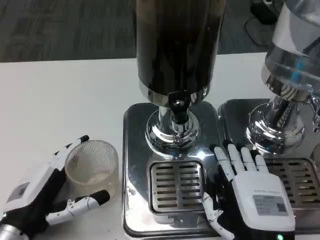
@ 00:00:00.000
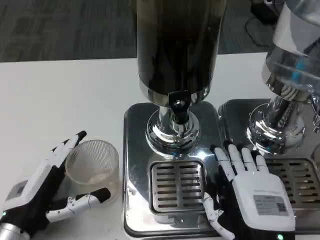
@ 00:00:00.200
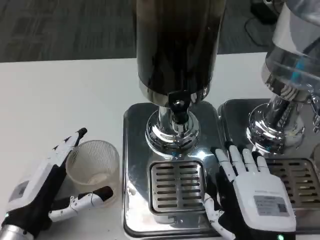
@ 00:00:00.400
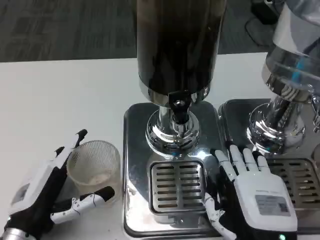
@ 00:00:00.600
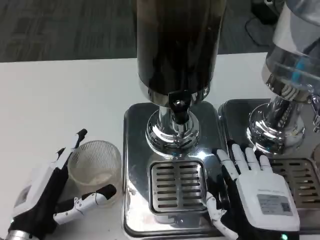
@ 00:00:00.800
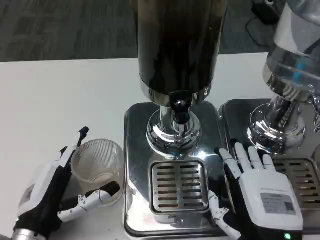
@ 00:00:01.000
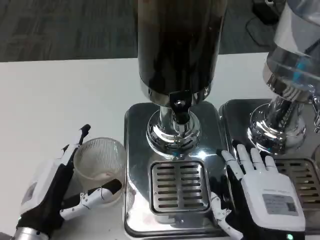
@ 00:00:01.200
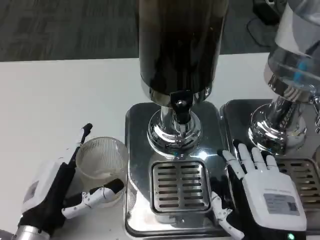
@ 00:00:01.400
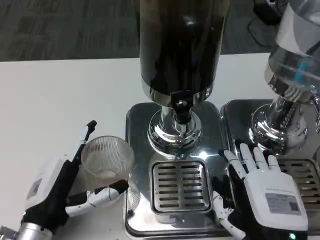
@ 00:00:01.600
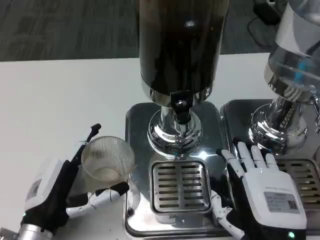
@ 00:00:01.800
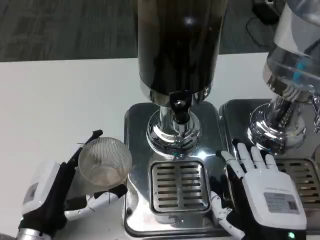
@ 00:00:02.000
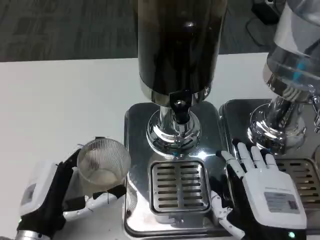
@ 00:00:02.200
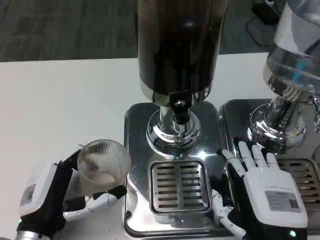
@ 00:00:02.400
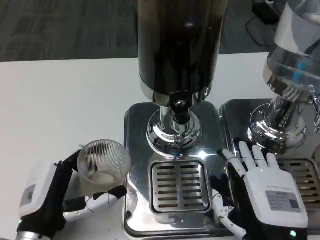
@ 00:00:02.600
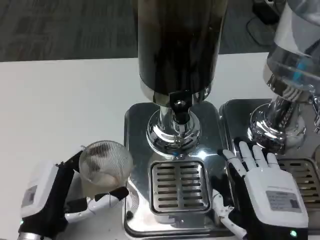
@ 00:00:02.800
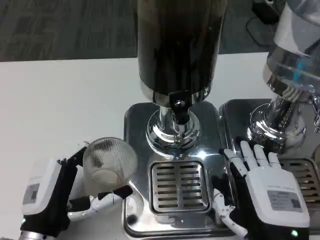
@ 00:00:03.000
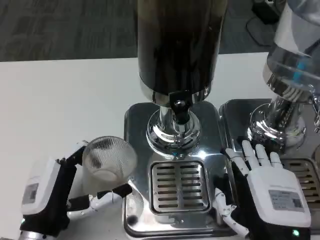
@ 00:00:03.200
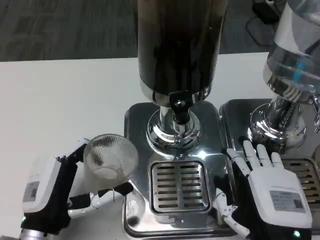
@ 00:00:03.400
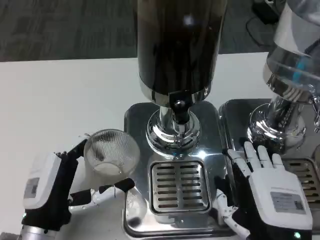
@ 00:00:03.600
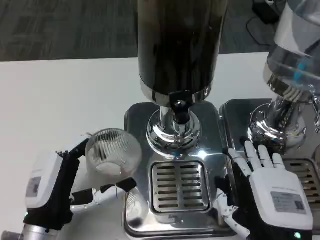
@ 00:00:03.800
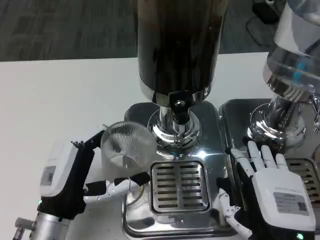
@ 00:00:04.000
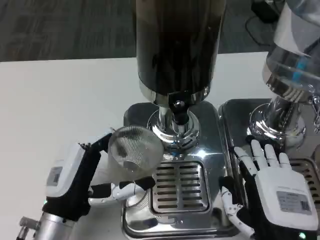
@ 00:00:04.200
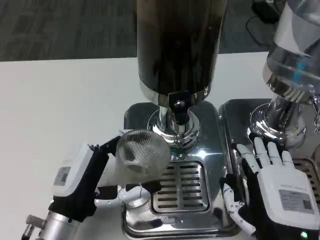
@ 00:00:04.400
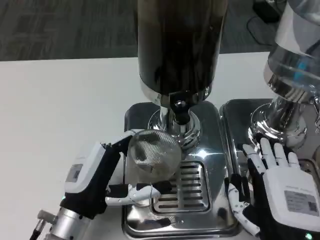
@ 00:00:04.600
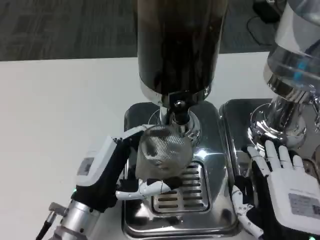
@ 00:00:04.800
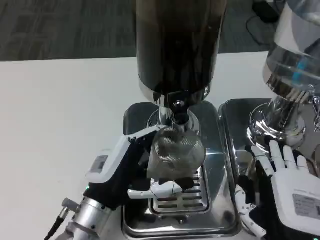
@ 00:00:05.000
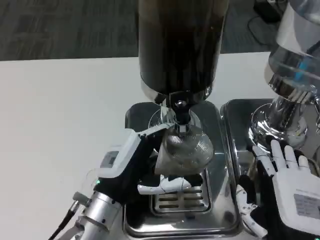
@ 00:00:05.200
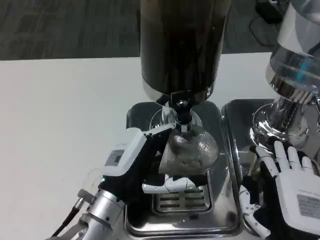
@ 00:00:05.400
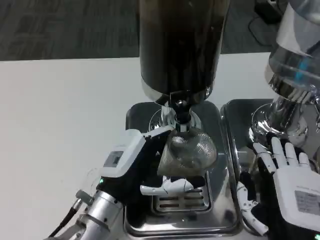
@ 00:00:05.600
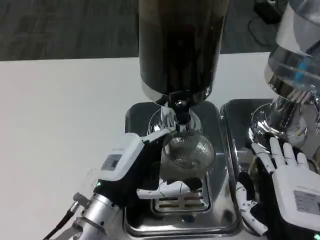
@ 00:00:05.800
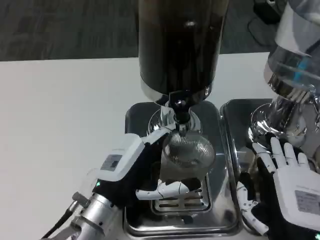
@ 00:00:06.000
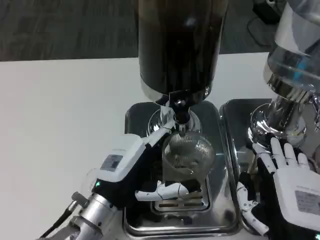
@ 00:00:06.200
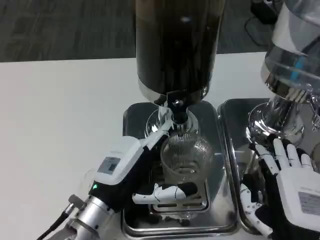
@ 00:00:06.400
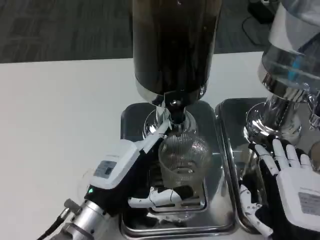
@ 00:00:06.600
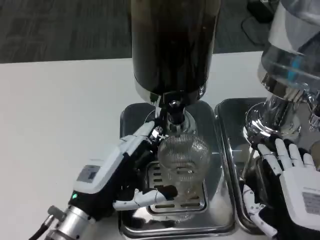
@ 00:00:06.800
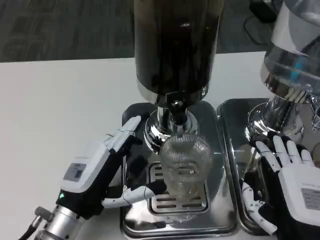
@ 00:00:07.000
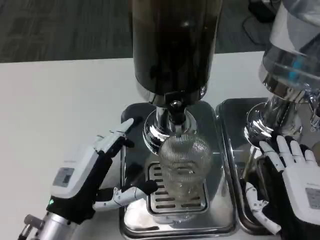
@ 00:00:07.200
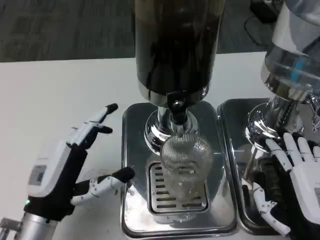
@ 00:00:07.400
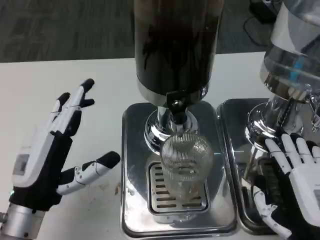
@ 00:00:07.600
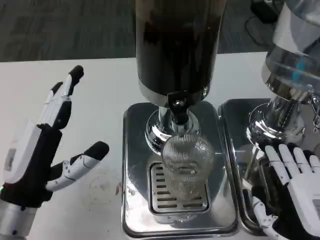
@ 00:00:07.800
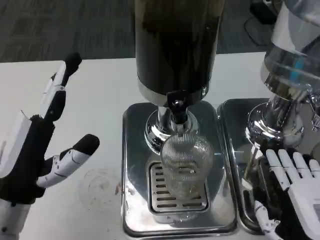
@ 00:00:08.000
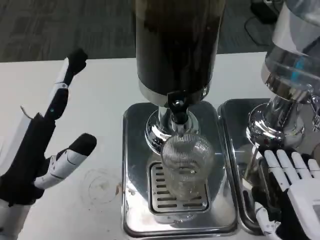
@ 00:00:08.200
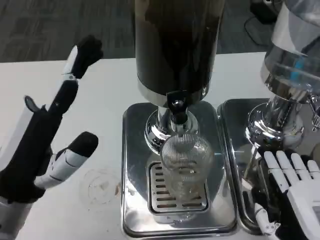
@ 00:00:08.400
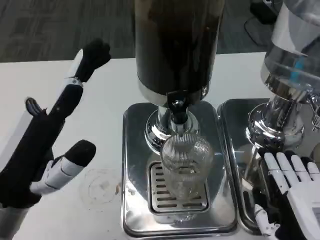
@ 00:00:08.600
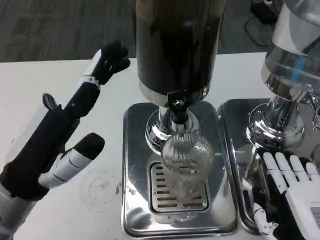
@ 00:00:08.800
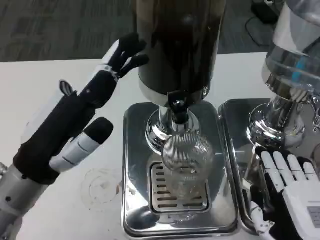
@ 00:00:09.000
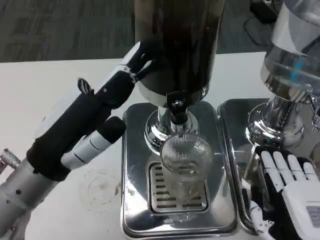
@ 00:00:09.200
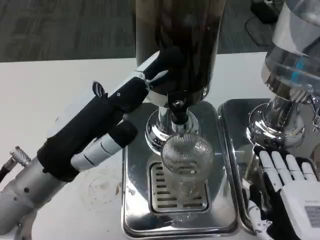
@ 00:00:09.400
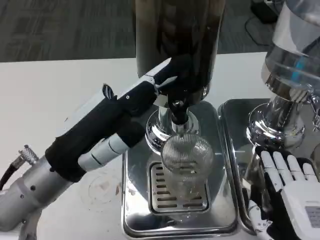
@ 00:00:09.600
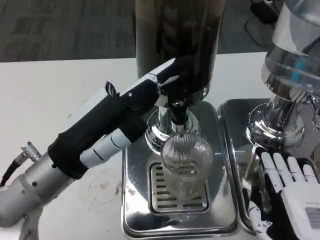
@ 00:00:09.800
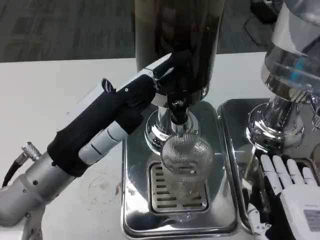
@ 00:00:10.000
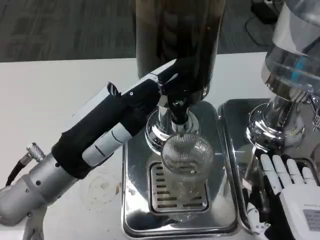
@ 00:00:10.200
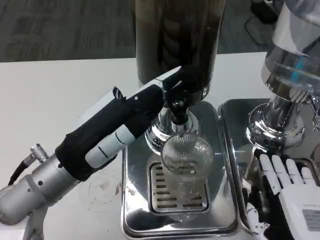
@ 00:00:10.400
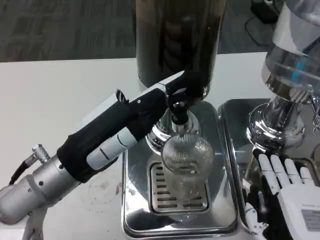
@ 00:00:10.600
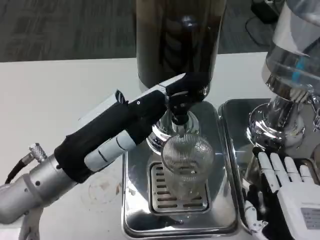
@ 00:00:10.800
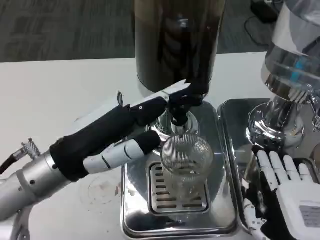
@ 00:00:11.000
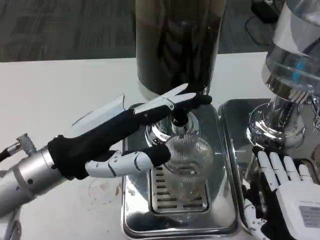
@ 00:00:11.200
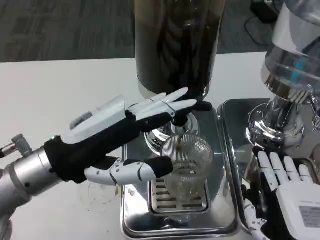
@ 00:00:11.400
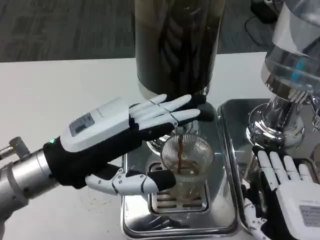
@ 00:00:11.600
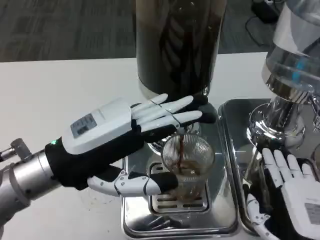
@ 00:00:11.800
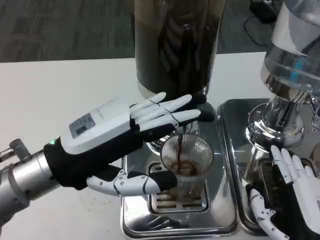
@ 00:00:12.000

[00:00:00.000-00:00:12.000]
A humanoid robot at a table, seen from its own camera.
Task of the whole recording: Grasp the cup under the faucet to collect the drink, then remove the cup.
00:00:01.600 to 00:00:03.000: The hands move only a little.
00:00:04.400 to 00:00:06.000: The left hand shifts by approximately 5 cm.
00:00:06.000 to 00:00:07.600: The left hand travels to the left by about 10 cm.
00:00:07.600 to 00:00:09.000: The left hand moves upward, approximately 10 cm.

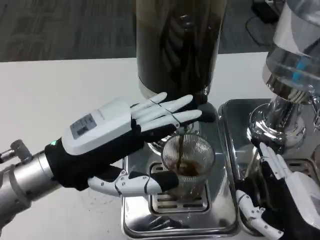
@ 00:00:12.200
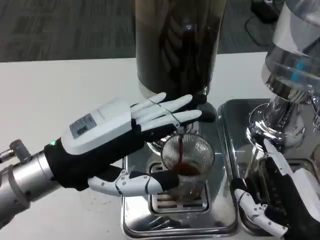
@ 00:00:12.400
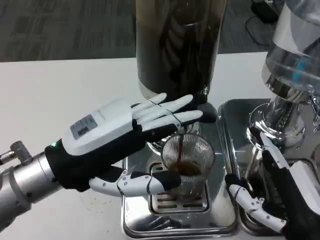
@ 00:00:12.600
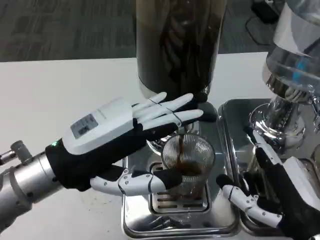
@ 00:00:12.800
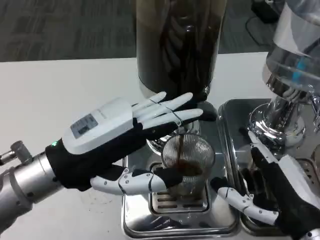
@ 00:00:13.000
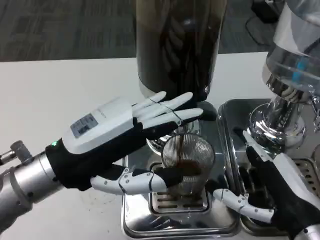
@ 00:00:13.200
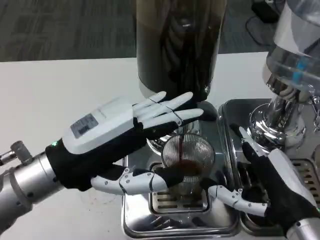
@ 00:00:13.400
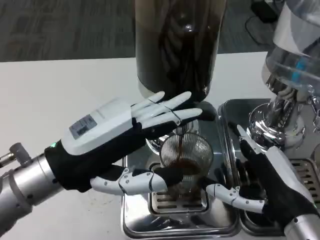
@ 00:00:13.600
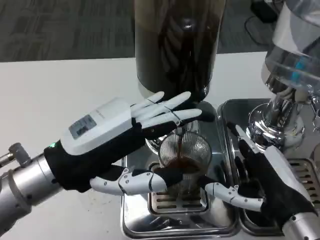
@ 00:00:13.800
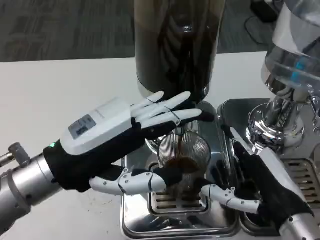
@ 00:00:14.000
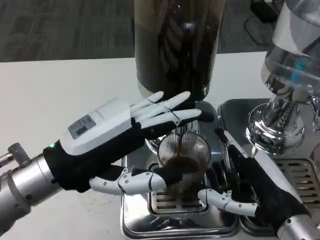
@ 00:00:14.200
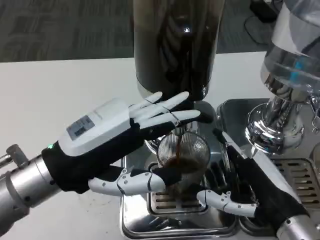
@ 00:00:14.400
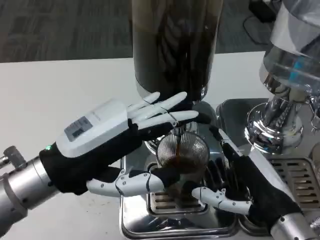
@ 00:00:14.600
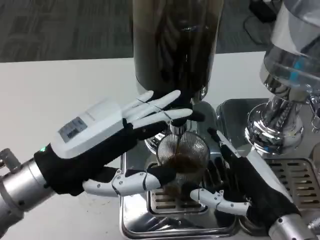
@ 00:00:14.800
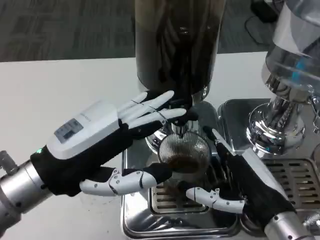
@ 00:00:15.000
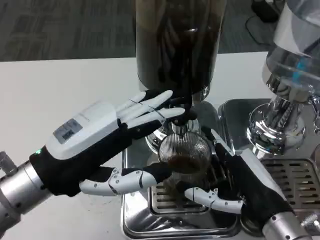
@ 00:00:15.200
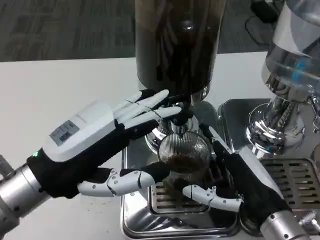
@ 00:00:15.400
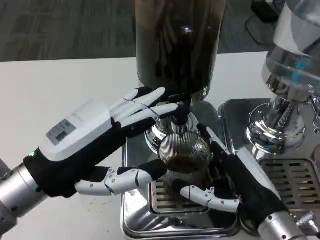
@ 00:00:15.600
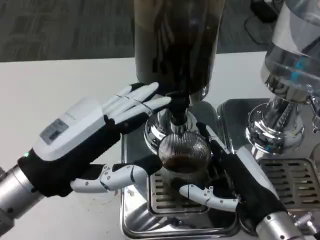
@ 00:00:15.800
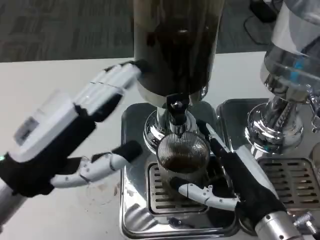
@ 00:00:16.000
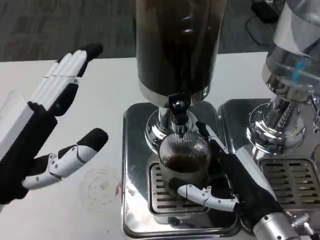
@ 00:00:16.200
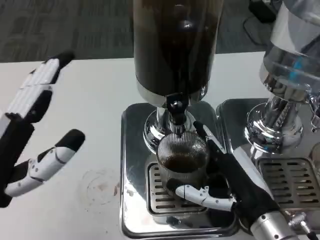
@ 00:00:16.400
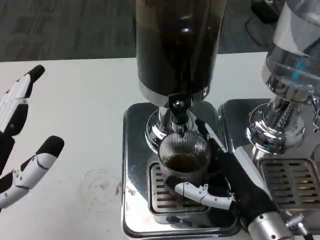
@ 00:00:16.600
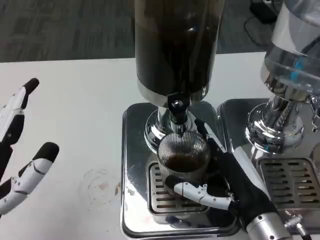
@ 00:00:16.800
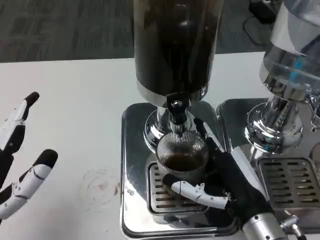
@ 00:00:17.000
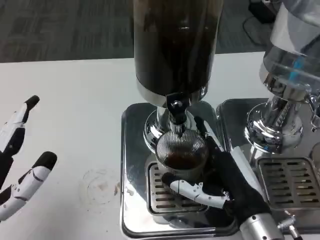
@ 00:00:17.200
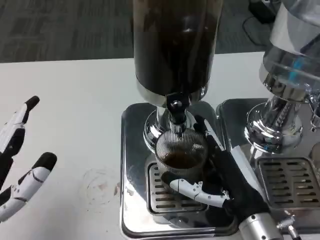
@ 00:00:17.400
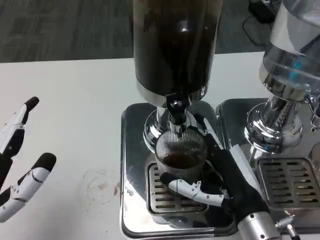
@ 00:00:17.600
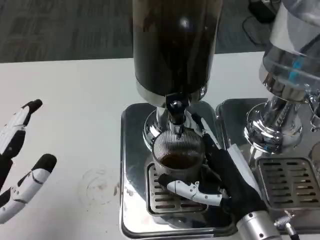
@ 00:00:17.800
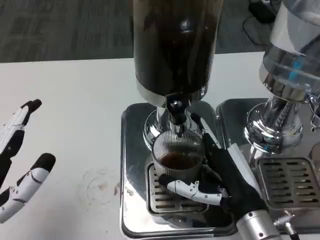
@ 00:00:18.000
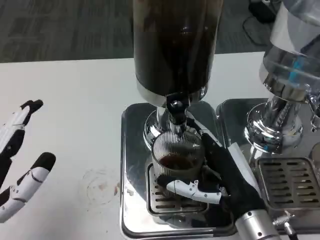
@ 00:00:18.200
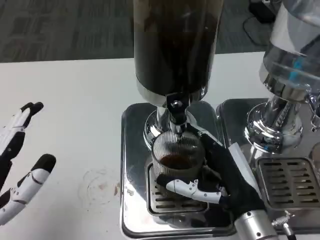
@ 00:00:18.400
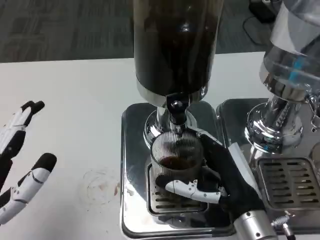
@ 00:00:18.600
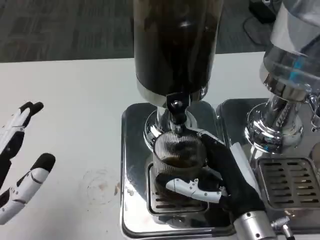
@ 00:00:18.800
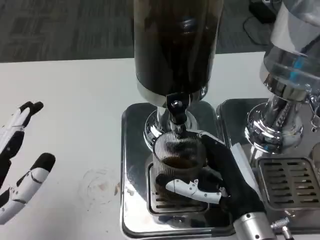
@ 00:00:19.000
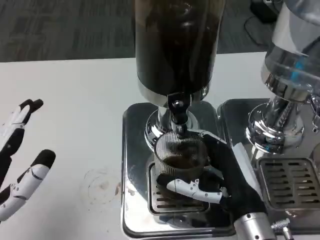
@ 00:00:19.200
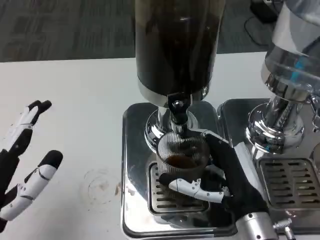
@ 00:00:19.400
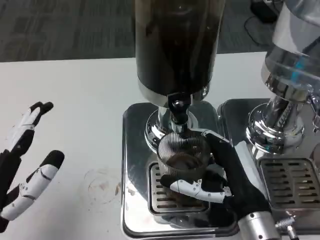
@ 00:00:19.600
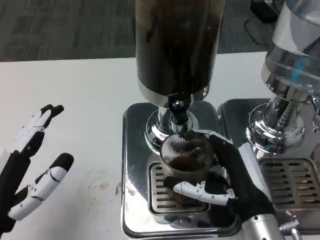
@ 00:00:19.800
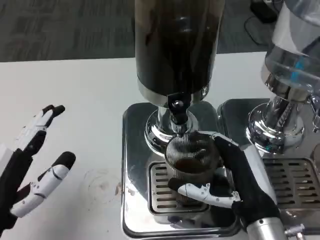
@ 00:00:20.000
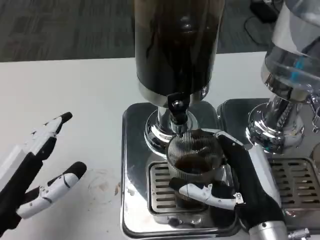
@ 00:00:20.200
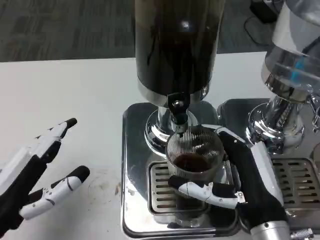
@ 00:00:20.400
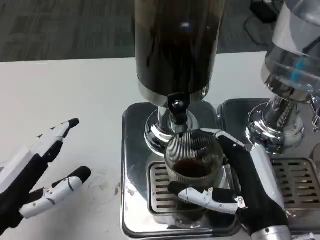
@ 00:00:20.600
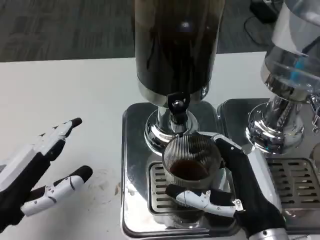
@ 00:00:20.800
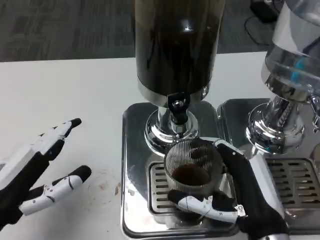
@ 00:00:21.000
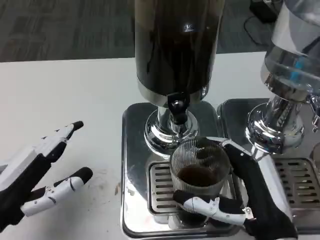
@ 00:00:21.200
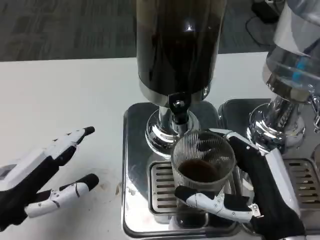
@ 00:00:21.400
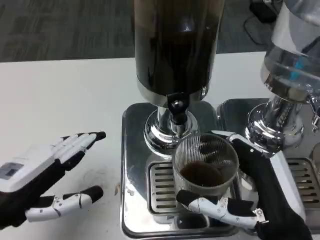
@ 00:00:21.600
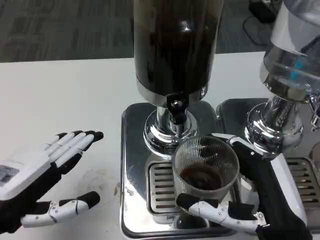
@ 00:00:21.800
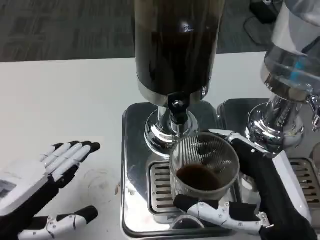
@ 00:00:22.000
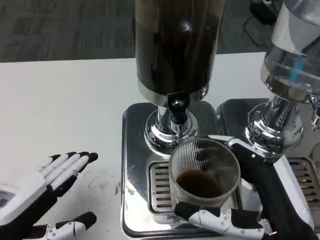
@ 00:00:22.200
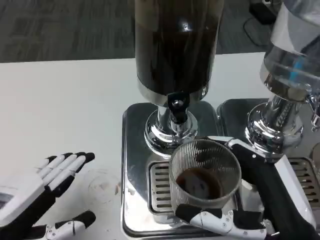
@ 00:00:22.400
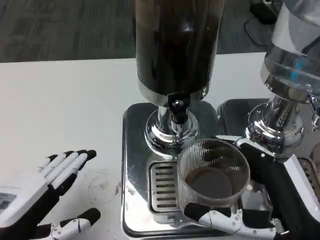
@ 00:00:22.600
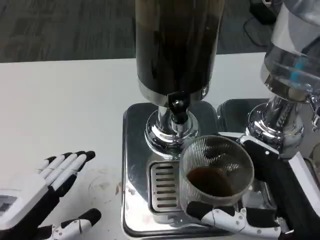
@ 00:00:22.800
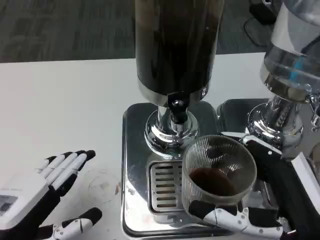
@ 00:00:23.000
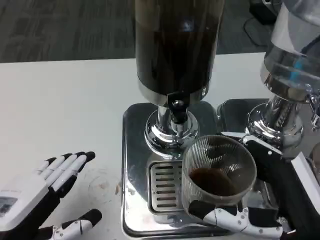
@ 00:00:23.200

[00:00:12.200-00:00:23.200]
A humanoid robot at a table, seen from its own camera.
Task of the whole recording: Grasp the cup under the faucet to collect the drink, then remove the cup.
00:00:12.200 to 00:00:13.800: The right hand ends up approximately 5 cm from where it was.
00:00:15.400 to 00:00:17.000: The left hand moves downward, backward and to the left, roughly 10 cm.
00:00:17.000 to 00:00:18.400: Both hands stay about where they are.
00:00:20.000 to 00:00:21.600: The right hand ends up about 5 cm from where it was.
00:00:21.600 to 00:00:23.200: The left hand moves backward, about 5 cm.
